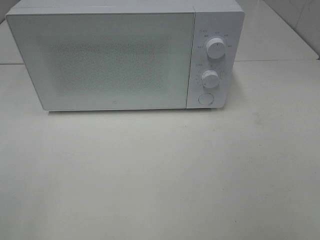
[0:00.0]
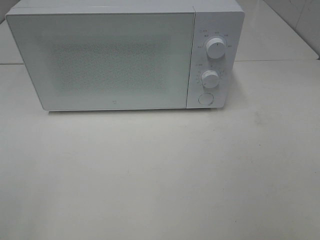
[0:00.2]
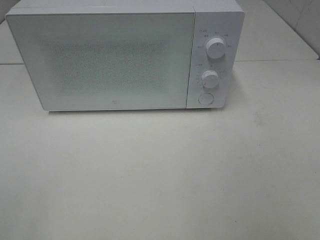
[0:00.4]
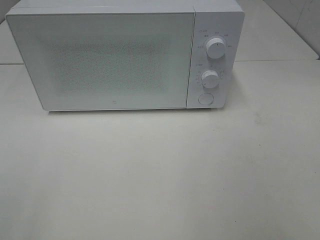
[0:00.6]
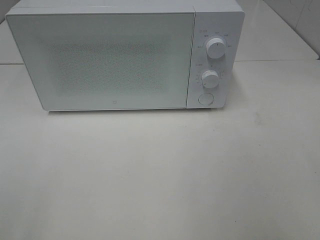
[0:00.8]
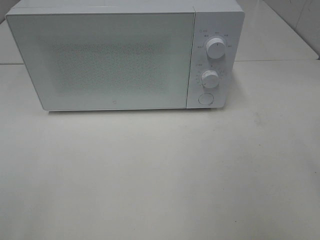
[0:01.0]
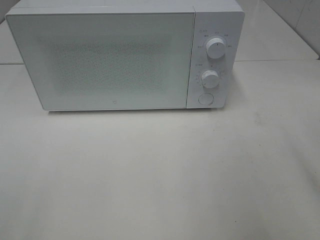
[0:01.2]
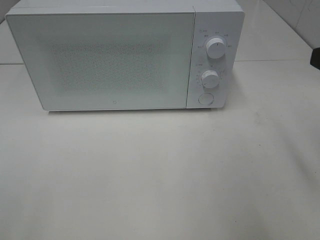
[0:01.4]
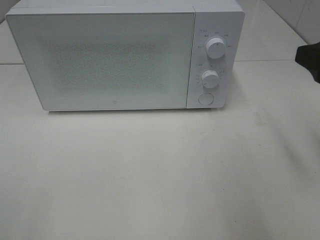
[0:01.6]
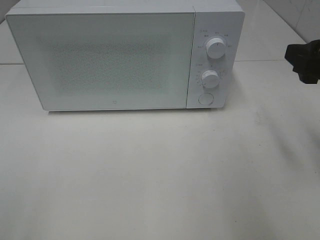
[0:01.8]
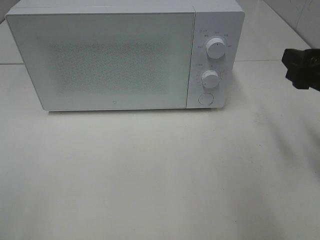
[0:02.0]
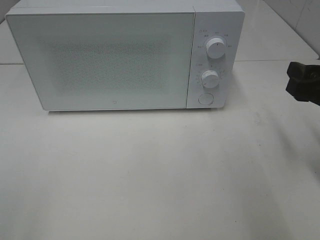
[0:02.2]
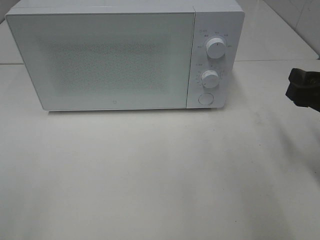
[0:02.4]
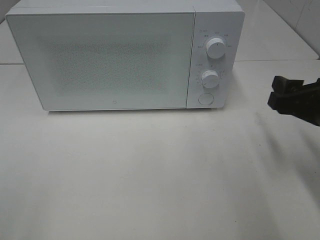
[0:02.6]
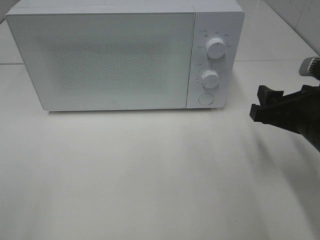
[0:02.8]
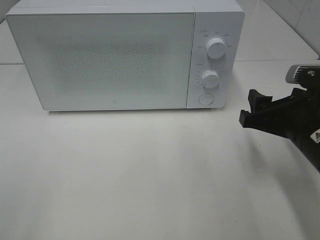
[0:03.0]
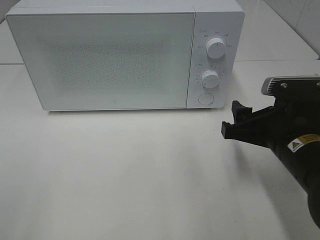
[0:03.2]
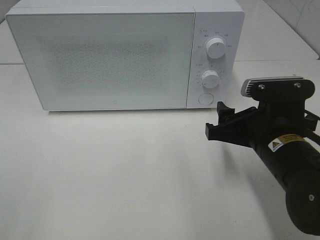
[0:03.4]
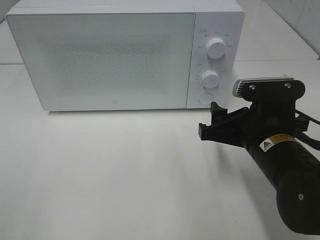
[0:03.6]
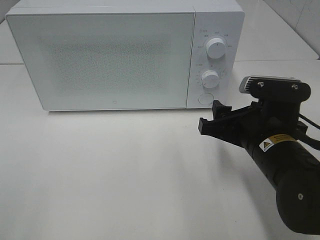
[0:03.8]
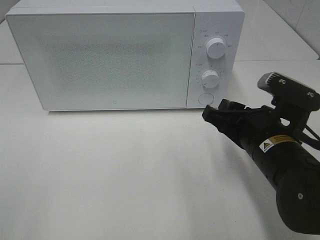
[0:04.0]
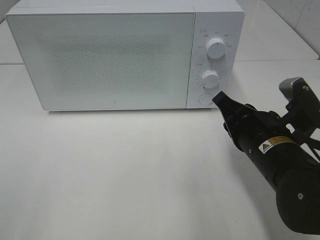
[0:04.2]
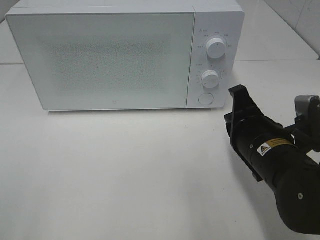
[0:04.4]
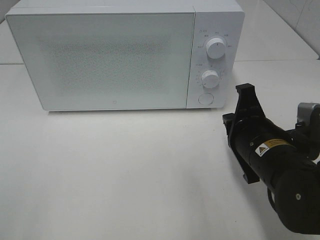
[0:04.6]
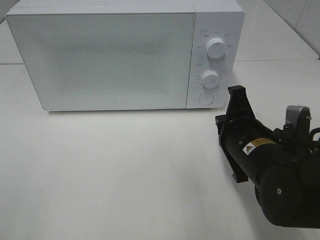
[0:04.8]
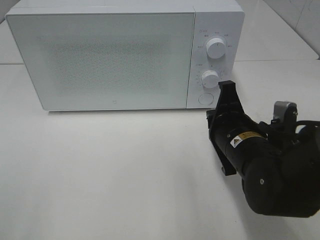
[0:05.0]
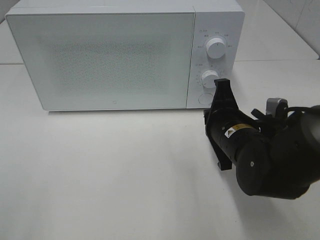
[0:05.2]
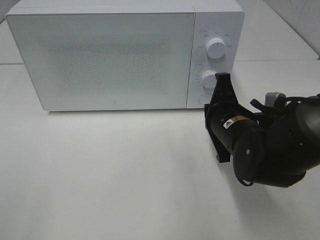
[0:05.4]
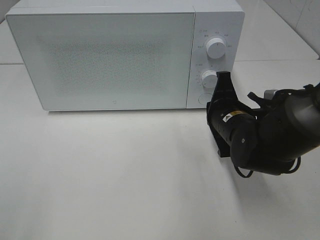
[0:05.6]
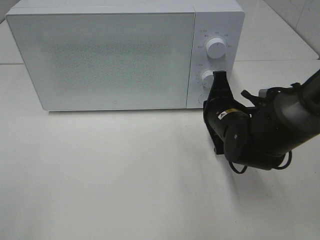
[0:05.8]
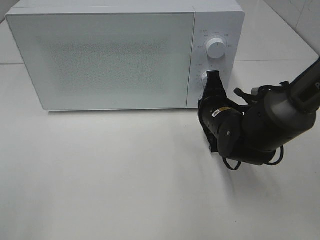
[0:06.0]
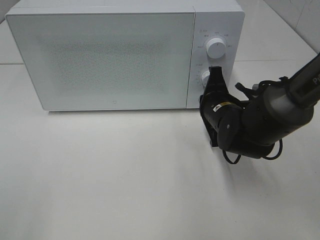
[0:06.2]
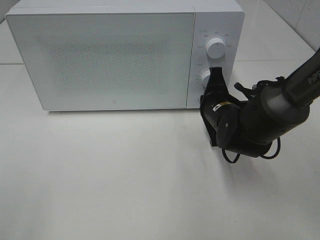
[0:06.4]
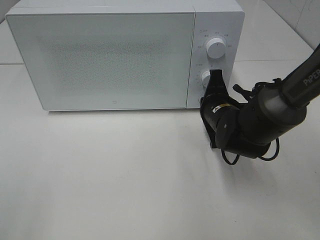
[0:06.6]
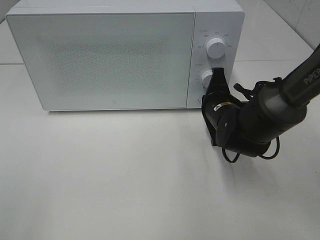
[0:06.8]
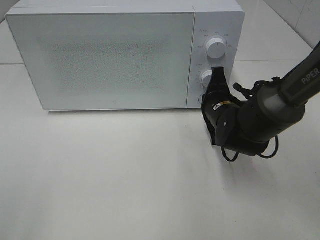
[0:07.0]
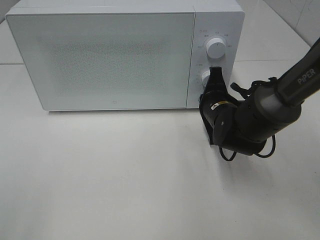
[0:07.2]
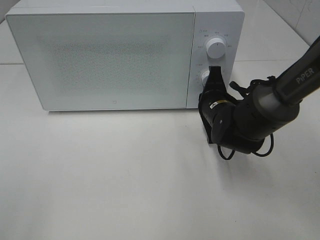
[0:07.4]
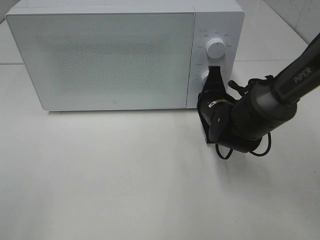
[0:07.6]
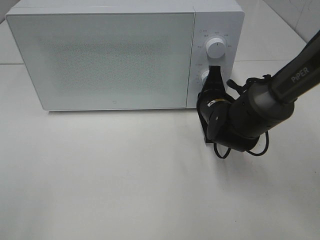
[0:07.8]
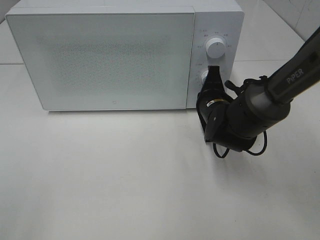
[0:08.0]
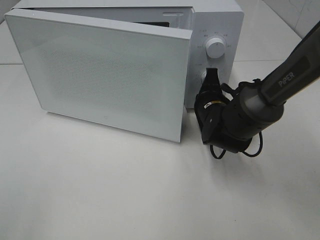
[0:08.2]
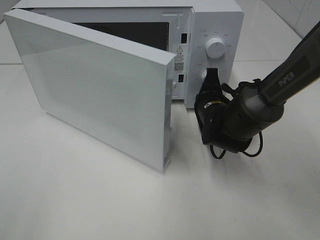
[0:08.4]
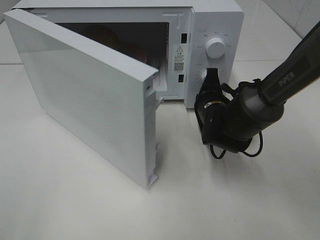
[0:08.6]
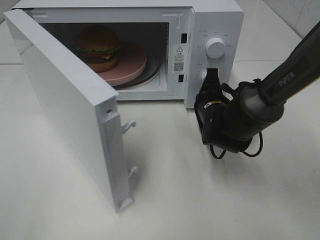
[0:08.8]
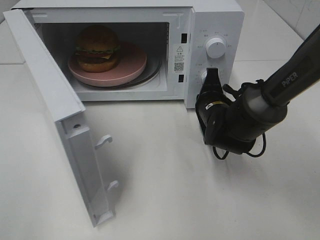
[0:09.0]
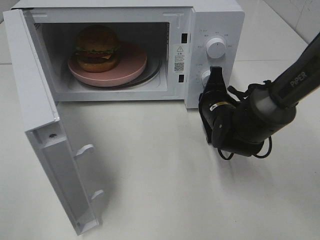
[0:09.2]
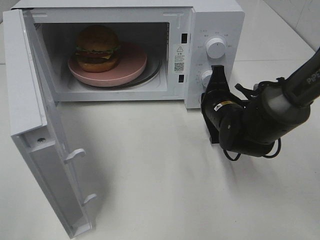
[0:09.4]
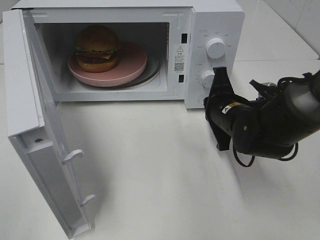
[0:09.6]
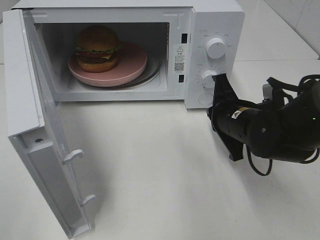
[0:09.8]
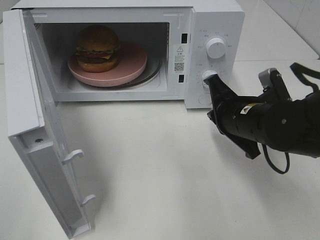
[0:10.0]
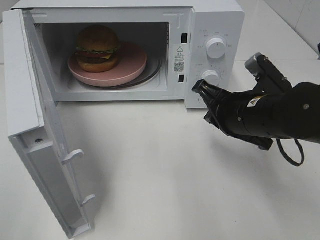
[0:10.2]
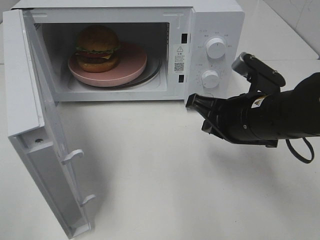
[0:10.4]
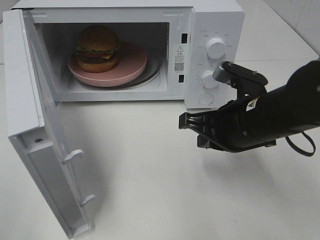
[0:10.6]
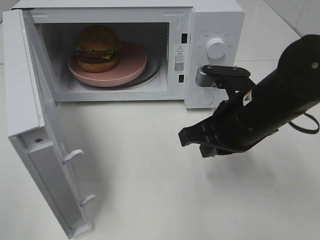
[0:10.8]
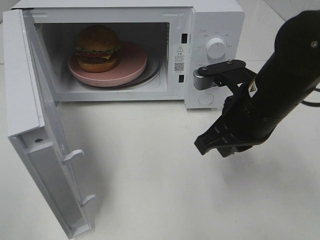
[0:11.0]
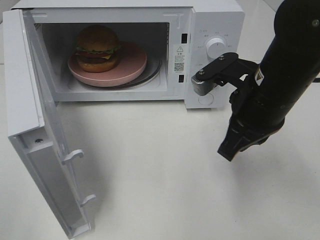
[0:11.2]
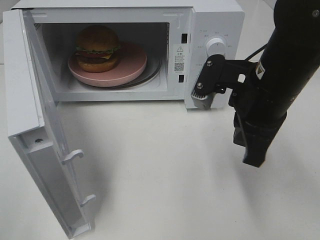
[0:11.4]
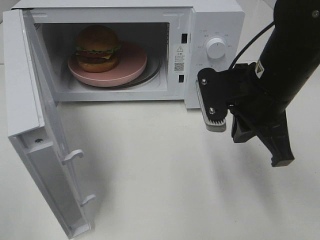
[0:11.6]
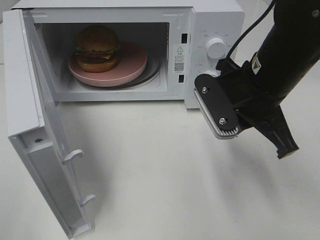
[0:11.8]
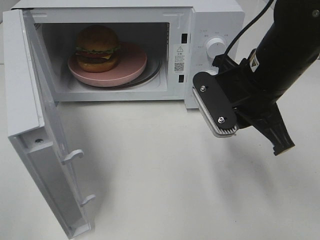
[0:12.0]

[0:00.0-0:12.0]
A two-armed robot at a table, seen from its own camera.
Task of the whole recording: Heat the burger.
Step, 0:00.0 to 0:09.4: Right hand: press the switch.
0:00.0 to 0:01.6: The right gripper goes approximately 20 cm forward.
0:01.6 to 0:03.0: The right gripper travels downward by roughly 10 cm.
0:03.0 to 0:04.4: The right gripper goes approximately 5 cm to the left, and closes up.
0:04.4 to 0:06.0: The right gripper goes roughly 10 cm forward.
0:06.0 to 0:07.6: The grippers stay close to where they were, moving slightly.
0:09.0 to 0:10.4: The right gripper goes roughly 15 cm backward and upward.
0:10.4 to 0:12.0: The right gripper heads upward, covering approximately 5 cm.

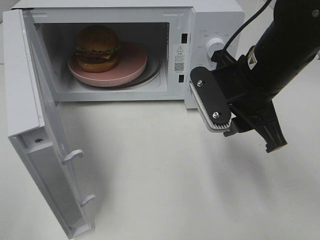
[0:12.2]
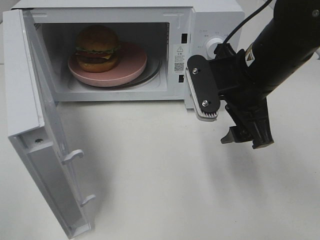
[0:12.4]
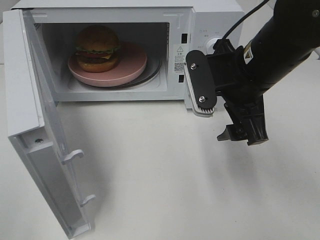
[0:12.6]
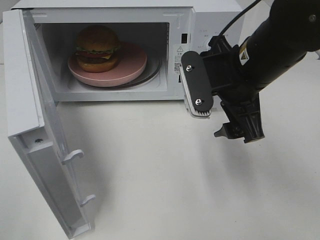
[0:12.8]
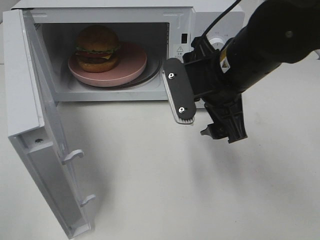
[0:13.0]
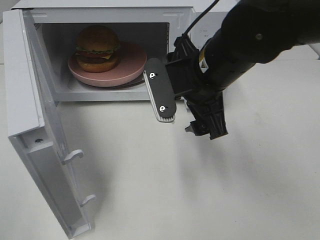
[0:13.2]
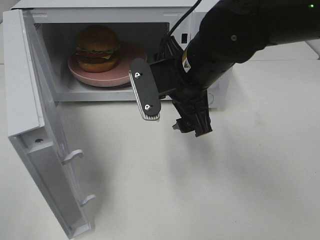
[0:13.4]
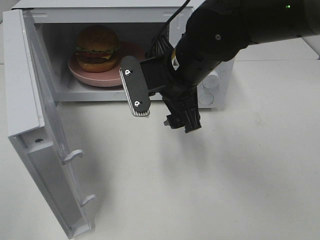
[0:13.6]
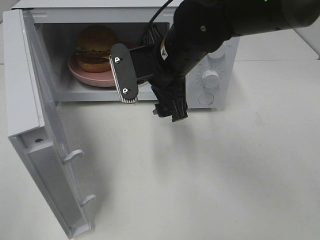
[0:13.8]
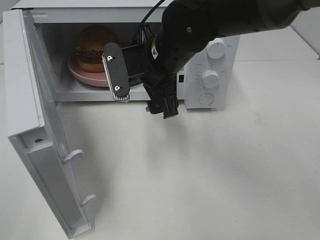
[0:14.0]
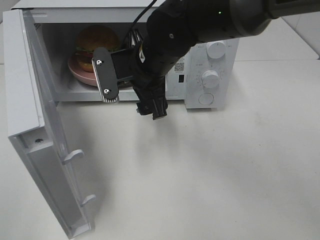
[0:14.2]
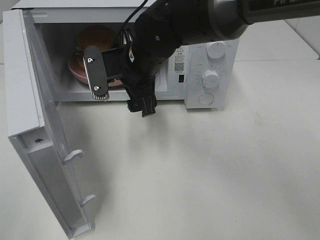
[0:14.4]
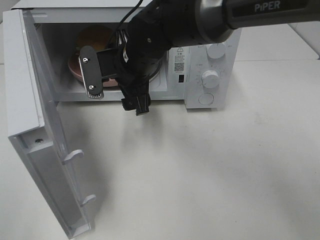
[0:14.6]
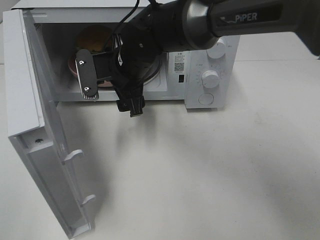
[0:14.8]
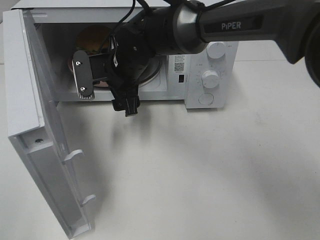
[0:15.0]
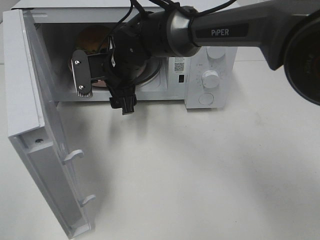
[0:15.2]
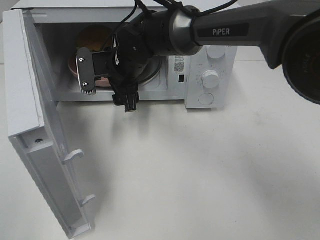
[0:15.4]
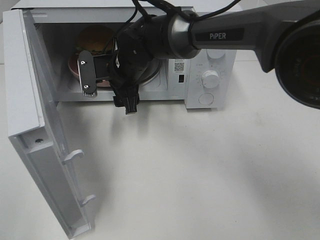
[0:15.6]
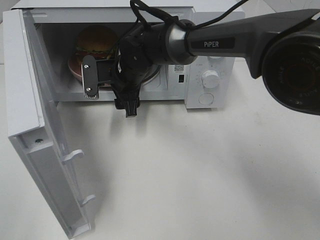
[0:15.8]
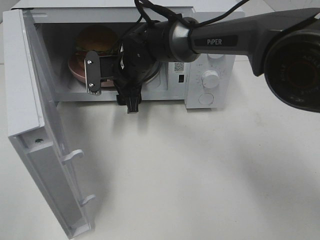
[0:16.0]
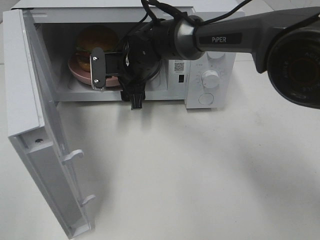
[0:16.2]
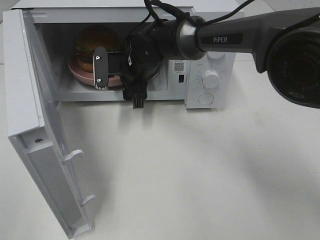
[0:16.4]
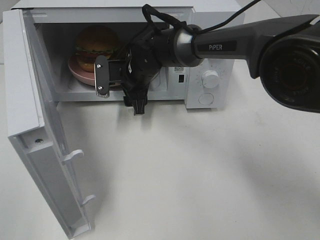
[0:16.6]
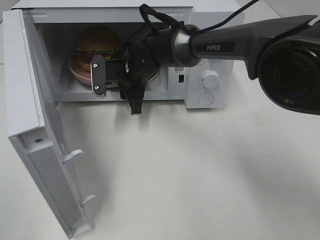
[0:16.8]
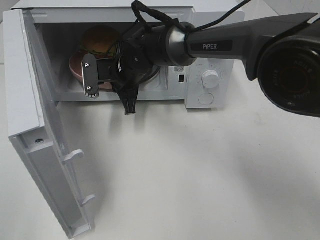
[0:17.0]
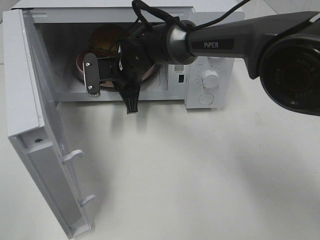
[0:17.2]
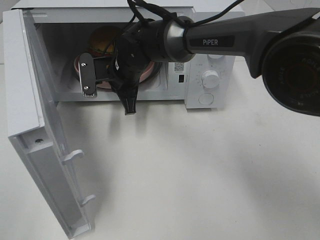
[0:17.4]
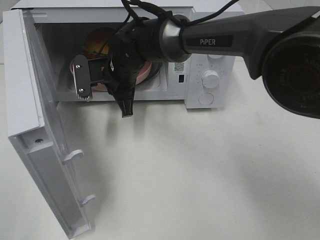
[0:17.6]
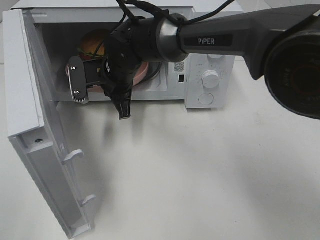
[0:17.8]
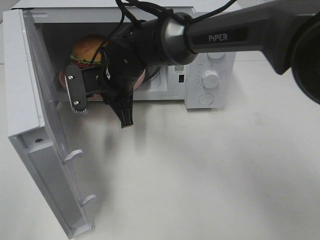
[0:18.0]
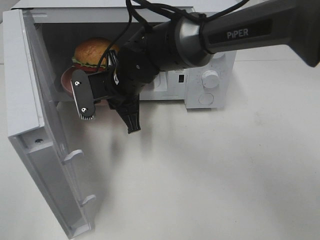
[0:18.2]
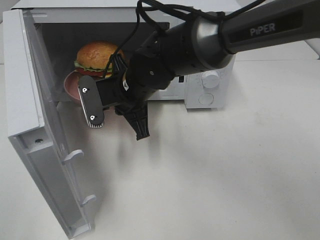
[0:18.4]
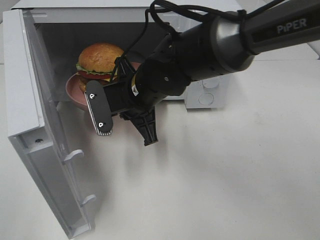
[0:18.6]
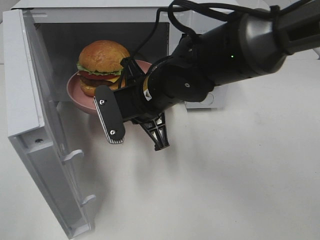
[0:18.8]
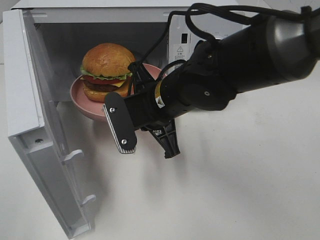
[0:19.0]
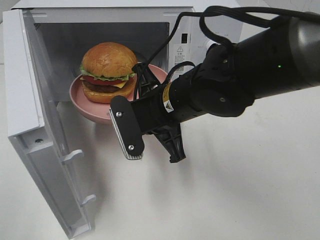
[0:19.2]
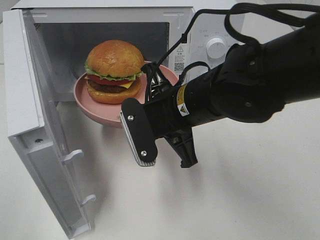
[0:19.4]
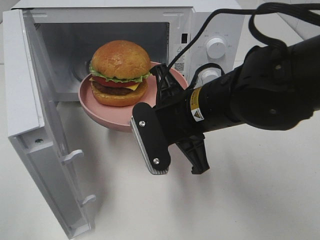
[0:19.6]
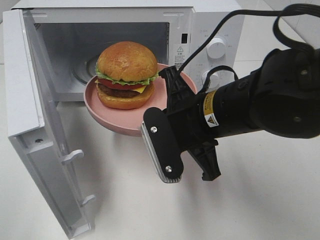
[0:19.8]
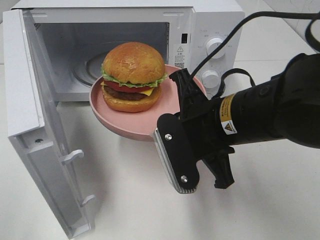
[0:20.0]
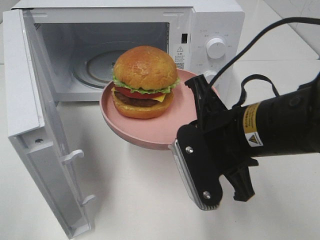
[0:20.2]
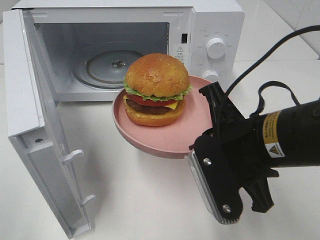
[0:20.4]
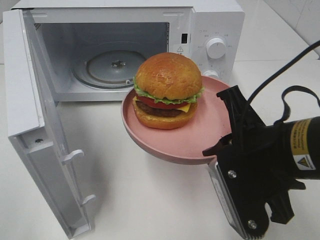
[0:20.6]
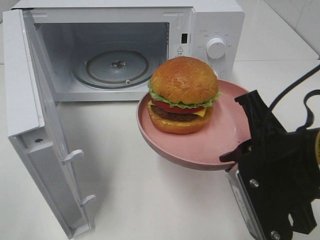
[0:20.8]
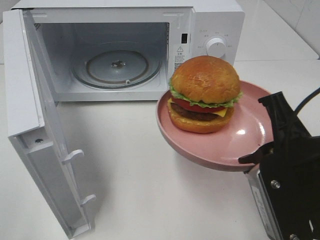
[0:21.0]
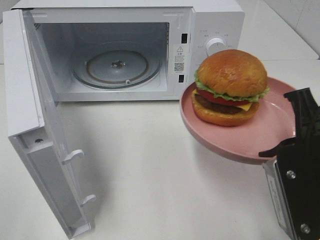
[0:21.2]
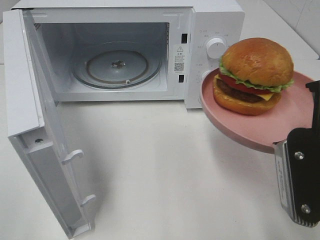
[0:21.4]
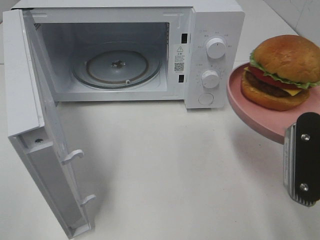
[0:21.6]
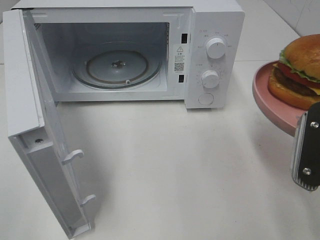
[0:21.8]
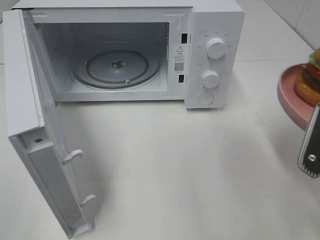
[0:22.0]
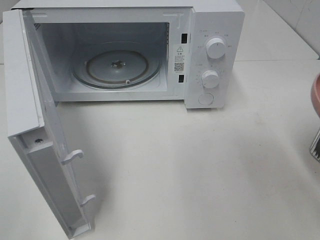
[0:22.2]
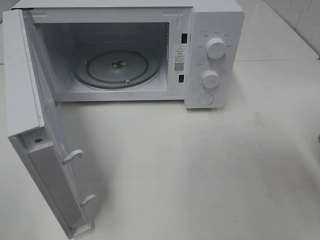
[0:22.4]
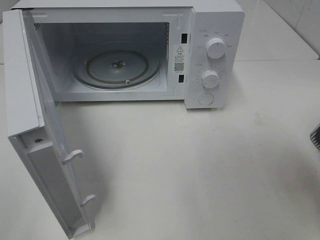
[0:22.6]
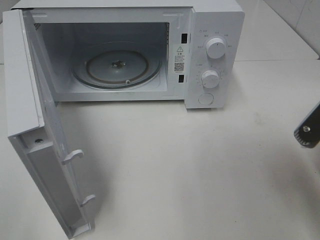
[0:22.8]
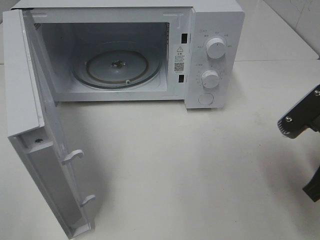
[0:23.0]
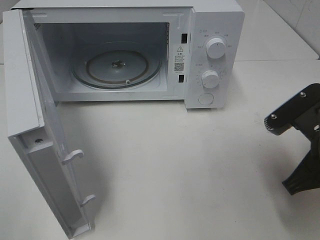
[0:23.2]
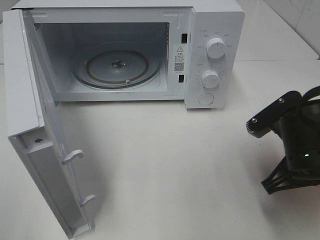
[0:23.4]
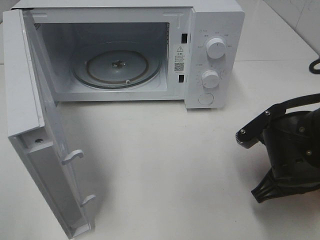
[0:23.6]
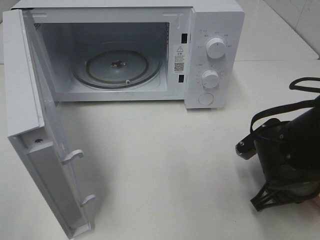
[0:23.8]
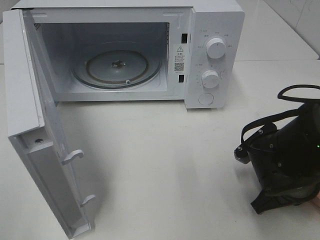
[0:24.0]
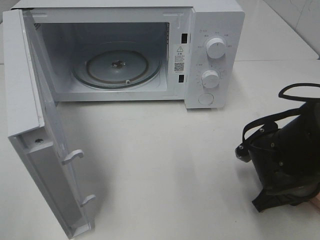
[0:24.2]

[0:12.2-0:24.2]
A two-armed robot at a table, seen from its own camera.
Task of the whole recording: Heat the burger.
Step, 0:12.2 to 0:17.0: Right hand: grab the plate with the hamburger.
0:12.2 to 0:13.8: The right gripper goes approximately 10 cm to the left and forward, and opens up.
0:13.8 to 0:15.2: The right gripper travels to the left, forward and downward by roughly 15 cm.
0:15.2 to 0:16.6: The right gripper changes place by approximately 5 cm.
0:16.6 to 0:18.2: The right gripper heads backward, covering approximately 10 cm, and closes its fingers.
0:18.2 to 0:19.8: The right gripper heads backward and to the right, covering roughly 20 cm.
0:19.8 to 0:21.2: The right gripper goes approximately 15 cm to the right and backward.
0:21.2 to 0:22.6: The right gripper heads to the right, covering about 5 cm.
0:22.6 to 0:24.2: The right gripper heads downward, forward and to the left, covering approximately 15 cm.
